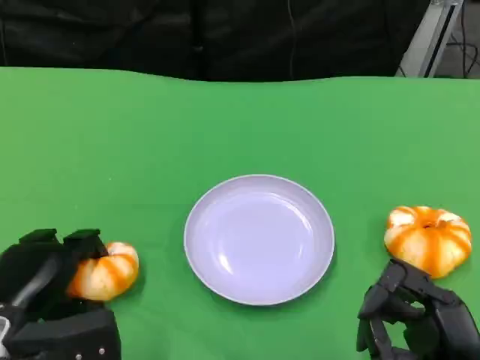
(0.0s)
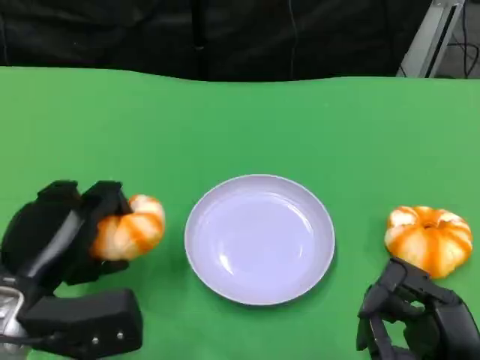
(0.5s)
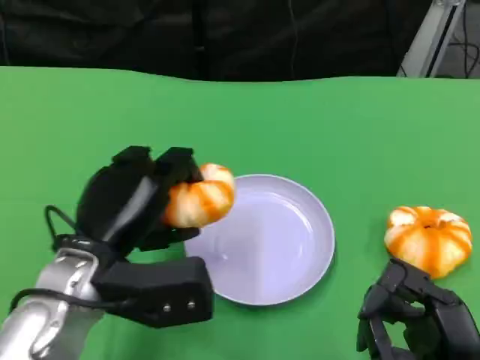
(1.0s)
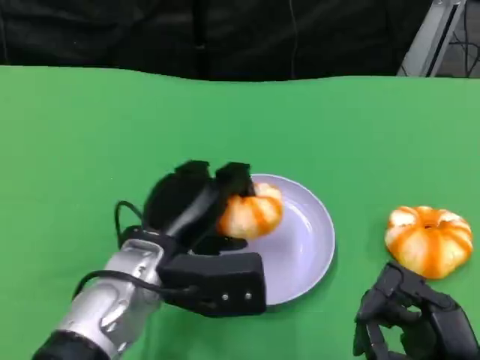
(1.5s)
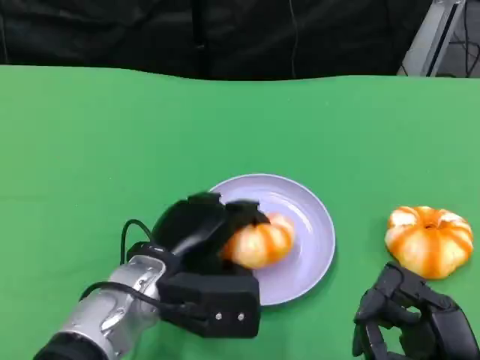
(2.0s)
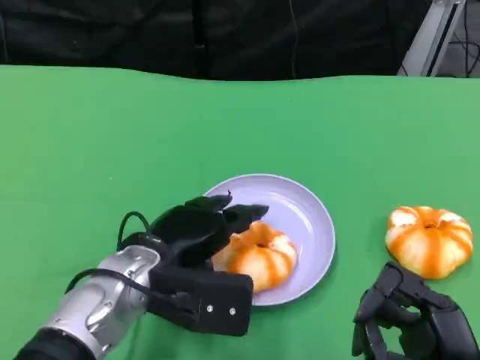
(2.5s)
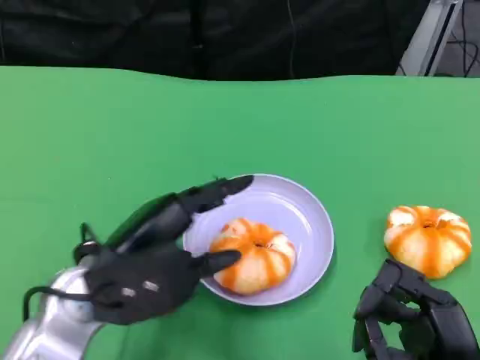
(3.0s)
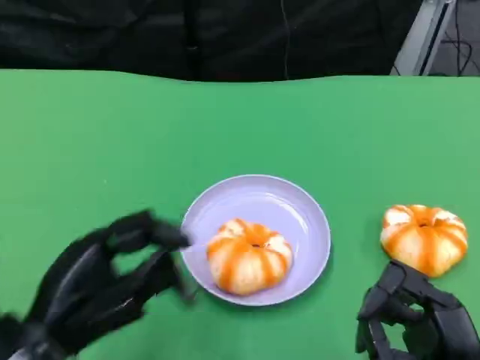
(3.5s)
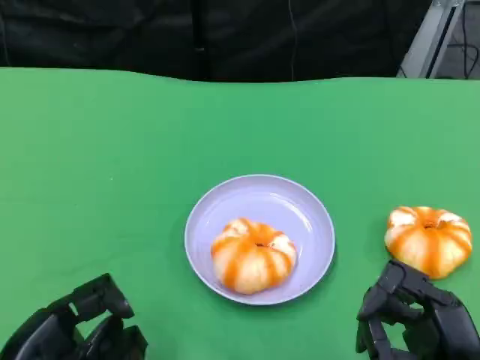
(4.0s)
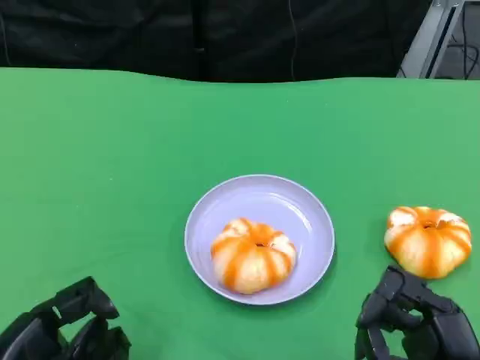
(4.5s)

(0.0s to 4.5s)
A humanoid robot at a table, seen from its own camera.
Task of the whole recording: Grasp the bread from the table and place it into the plate.
0.0s - 2.0s: The left hand is displaced to the right by some 15 cm.
2.0s - 4.5s: The left hand moves to the left and backward, some 20 cm.

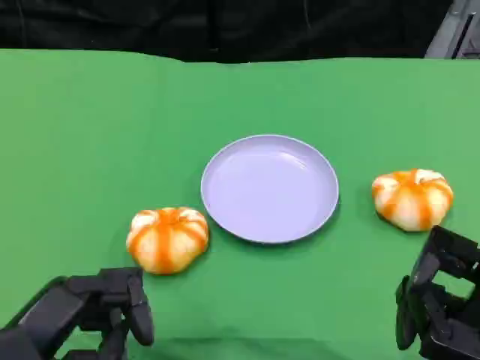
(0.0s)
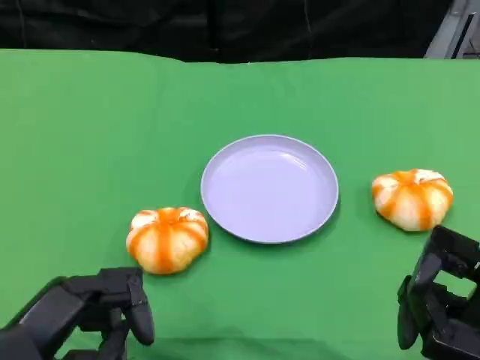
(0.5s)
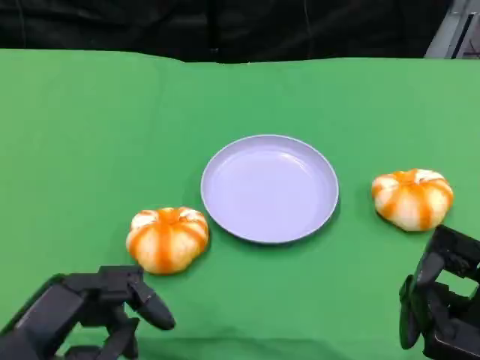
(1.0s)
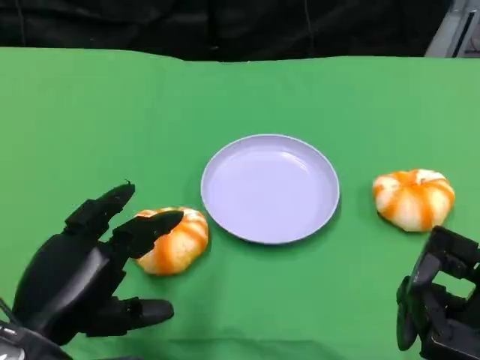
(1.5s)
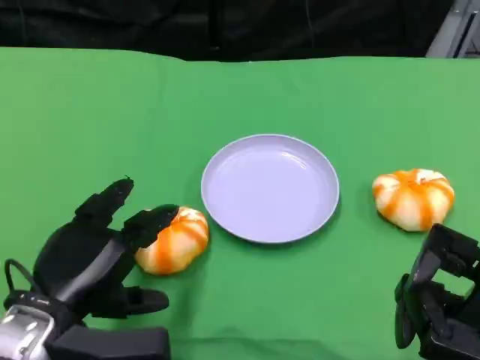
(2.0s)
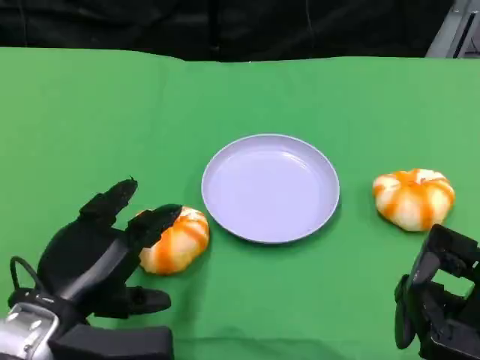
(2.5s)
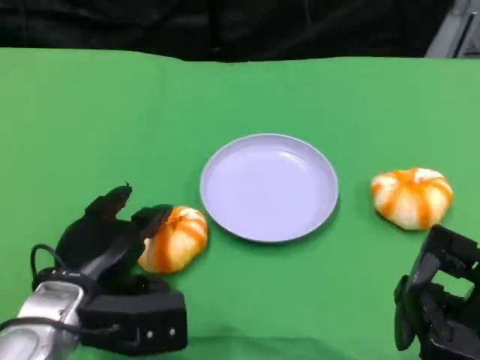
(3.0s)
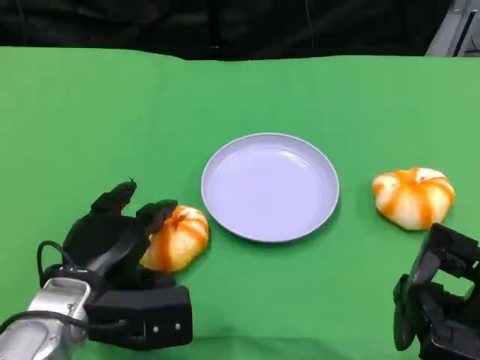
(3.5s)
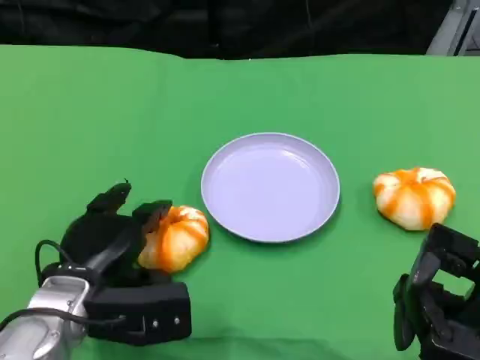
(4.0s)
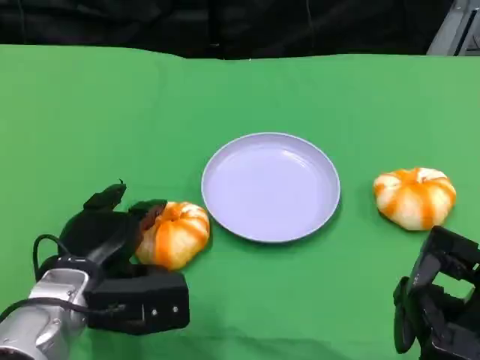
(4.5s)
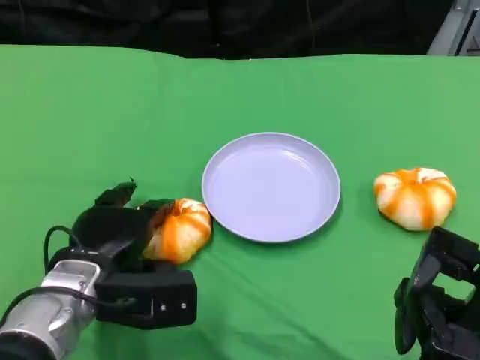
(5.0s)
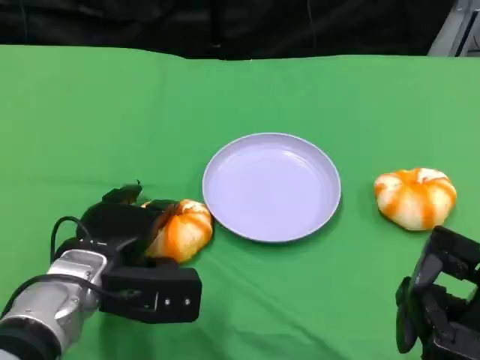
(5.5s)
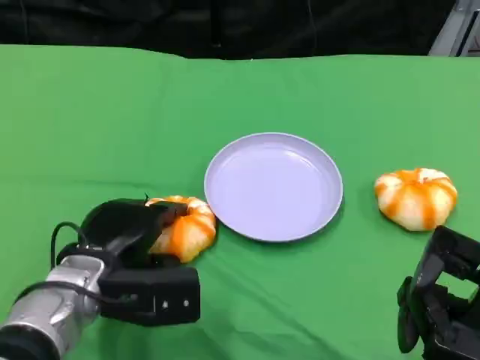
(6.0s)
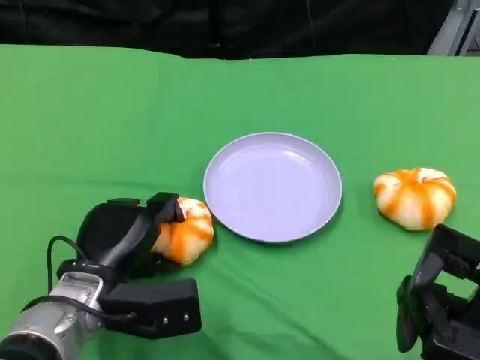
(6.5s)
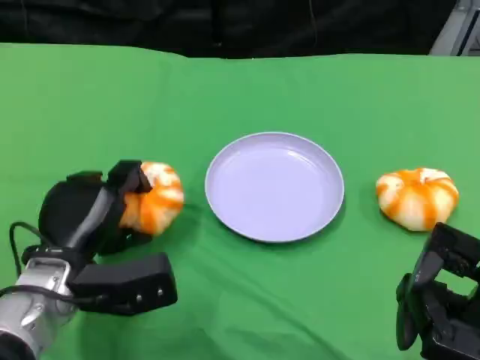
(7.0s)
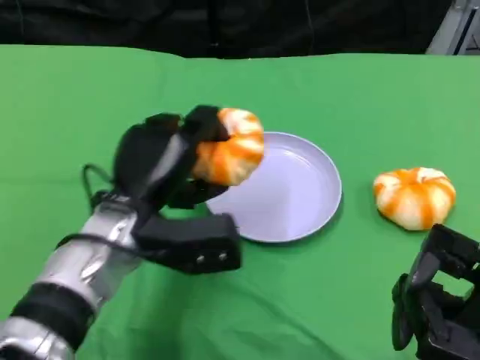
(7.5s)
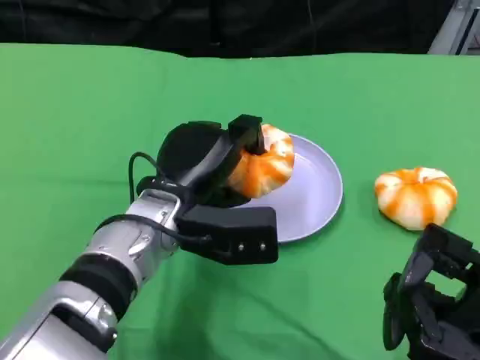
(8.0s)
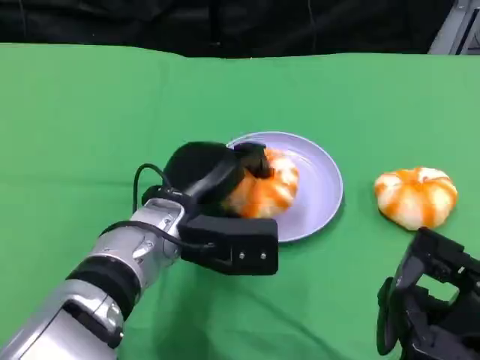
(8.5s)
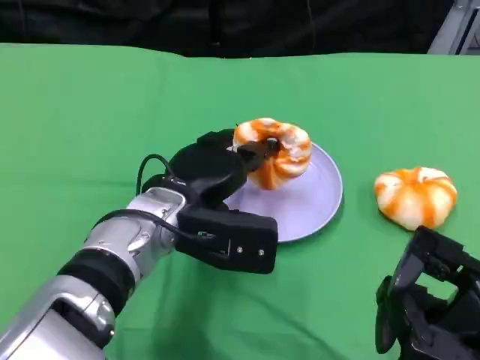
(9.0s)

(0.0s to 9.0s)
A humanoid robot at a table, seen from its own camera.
Task of the whole recording: Grasp the bread from the table and place it into the plate.
0.0s - 2.0s: The left hand goes approximately 5 cm forward.
2.0s - 4.5s: The left hand goes some 5 cm forward.
7.0s - 9.0s: The left hand travels to the right by roughly 10 cm.

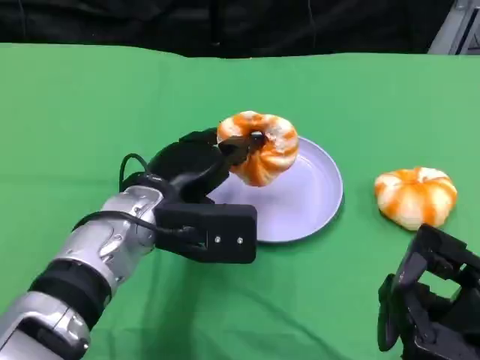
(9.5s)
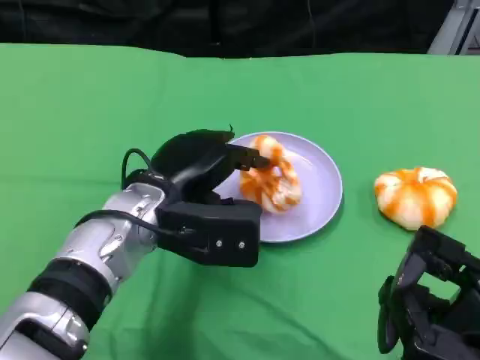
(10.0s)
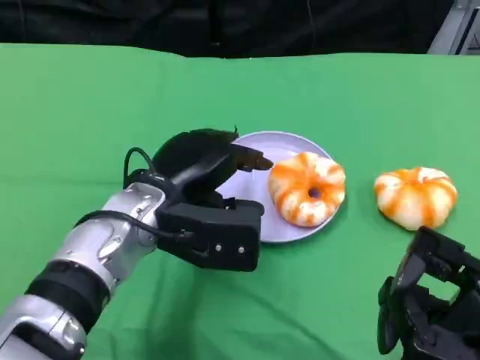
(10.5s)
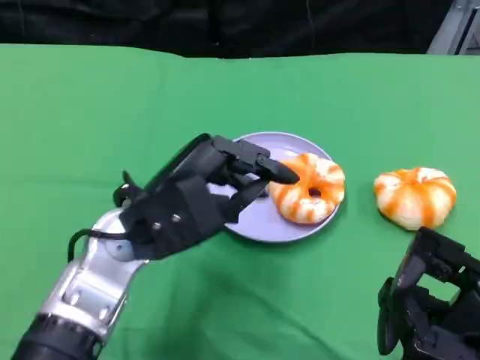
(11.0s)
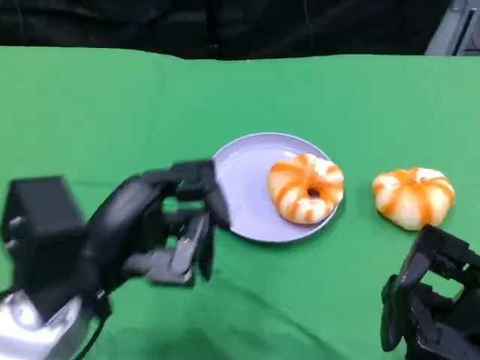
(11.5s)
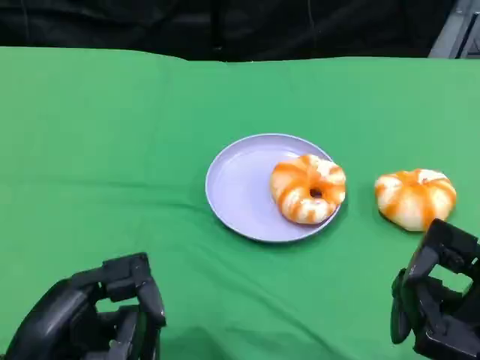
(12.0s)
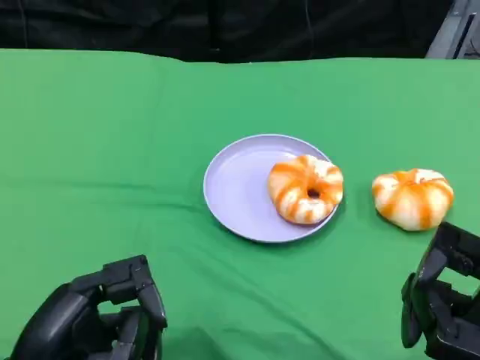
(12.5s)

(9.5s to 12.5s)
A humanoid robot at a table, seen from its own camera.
Task of the whole recording: Grasp the bread from the table and place it into the plate.
11.0s - 12.5s: The left hand moves backward and to the left, some 15 cm.

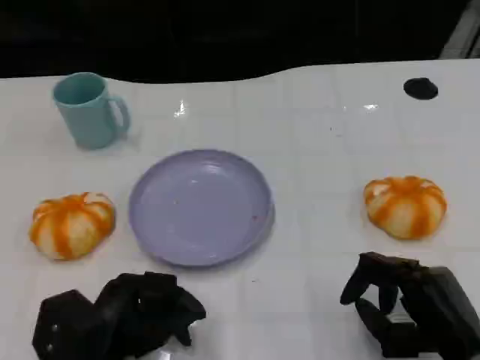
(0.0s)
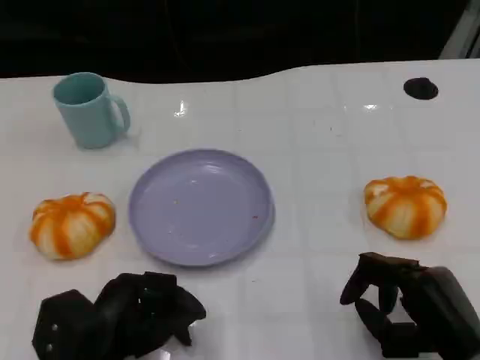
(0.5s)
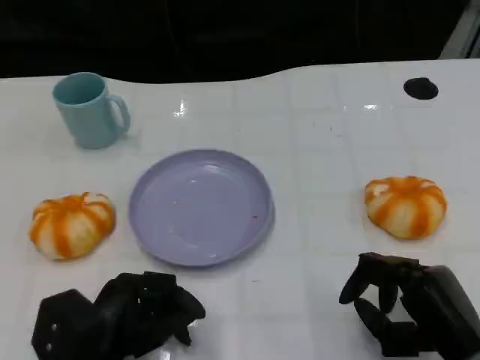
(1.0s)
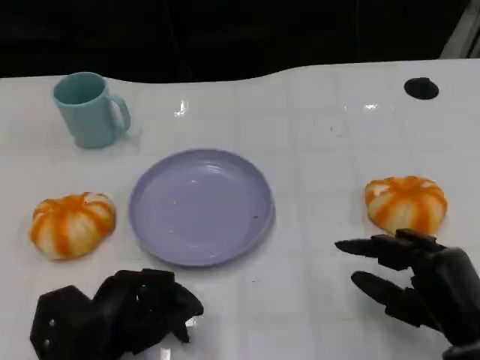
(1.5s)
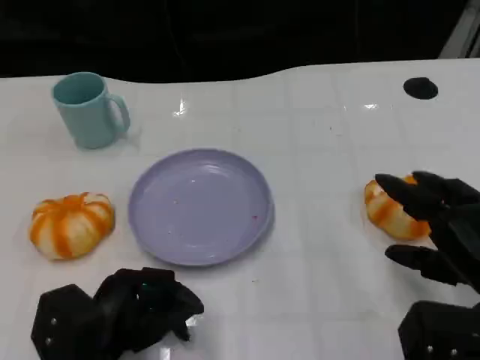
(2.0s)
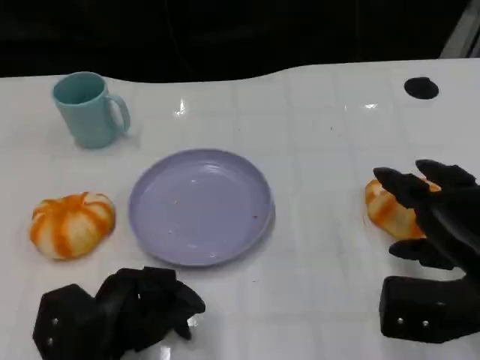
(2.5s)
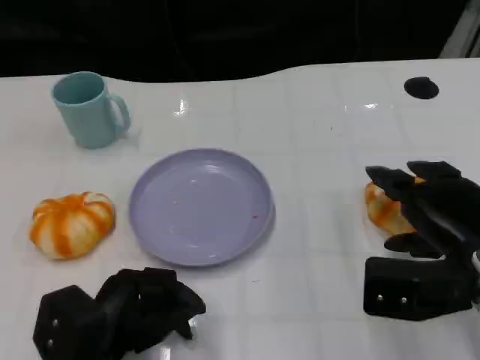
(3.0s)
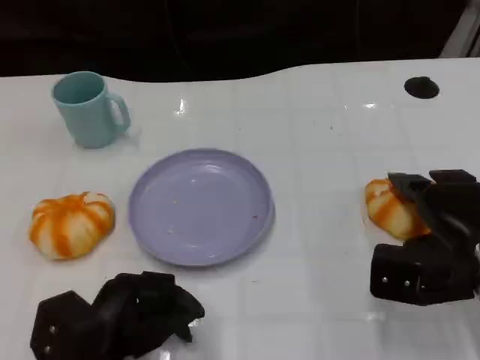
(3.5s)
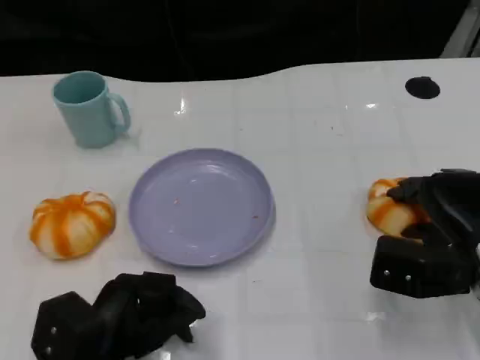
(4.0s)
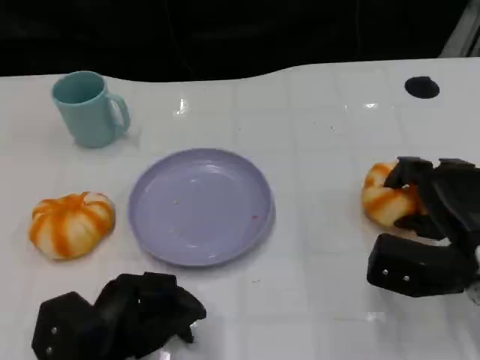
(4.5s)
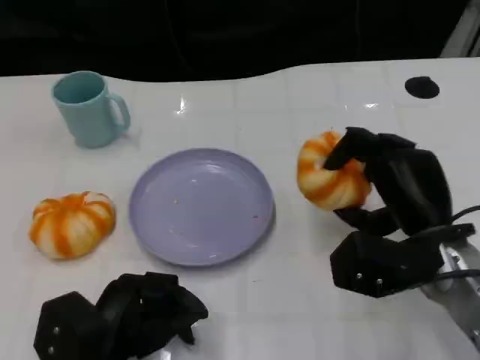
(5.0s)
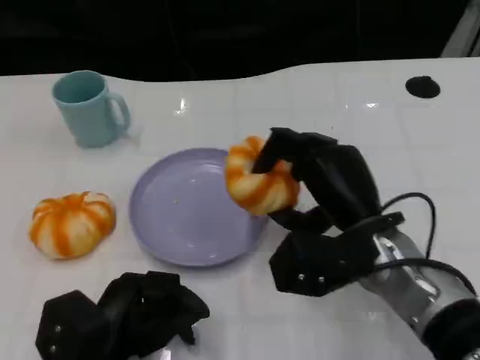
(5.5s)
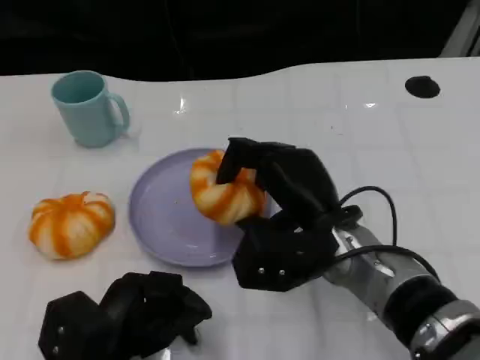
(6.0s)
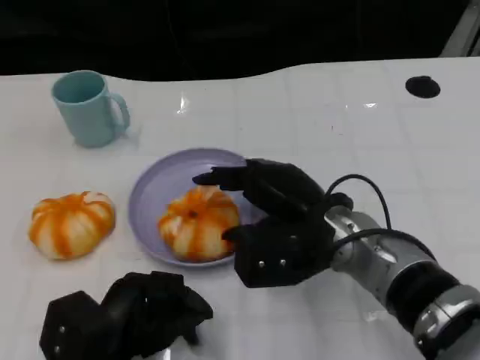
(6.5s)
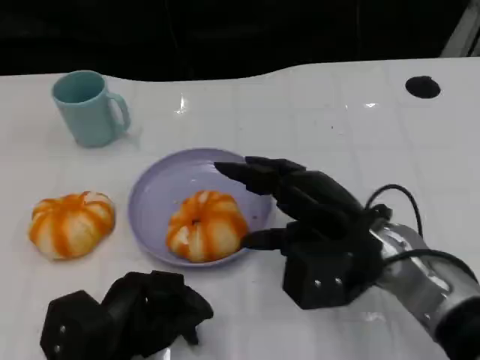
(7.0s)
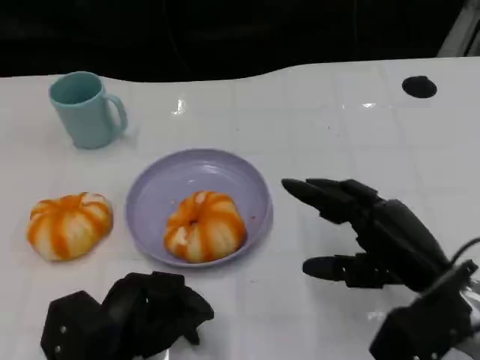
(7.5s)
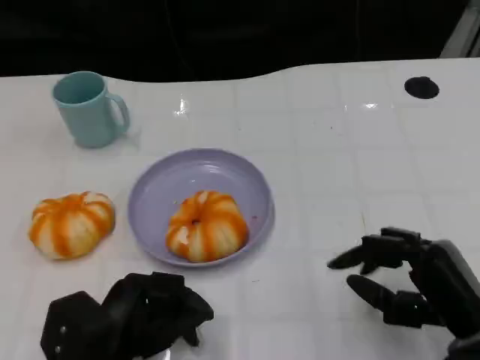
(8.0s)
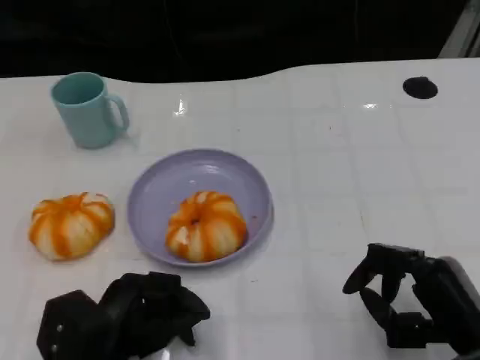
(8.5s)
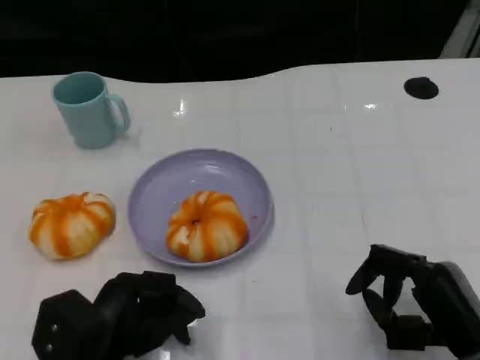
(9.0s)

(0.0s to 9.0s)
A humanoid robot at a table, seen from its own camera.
Task of the whole recording: Grasp the bread from the table and place it into the plate.
0.0s - 2.0s: The right hand shifts roughly 5 cm upward.
2.0s - 4.5s: The right hand shifts approximately 5 cm forward.
4.5s - 7.0s: The right hand goes about 10 cm to the left.
7.0s - 9.0s: The right hand shifts about 15 cm backward, to the right and downward.
